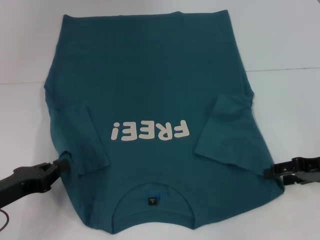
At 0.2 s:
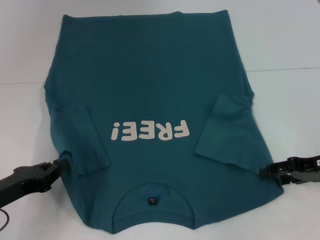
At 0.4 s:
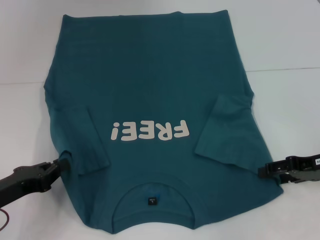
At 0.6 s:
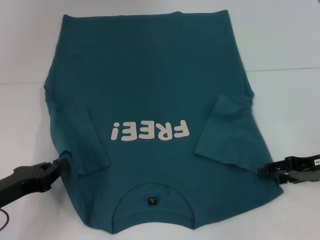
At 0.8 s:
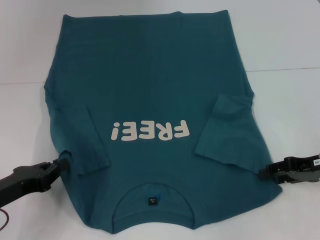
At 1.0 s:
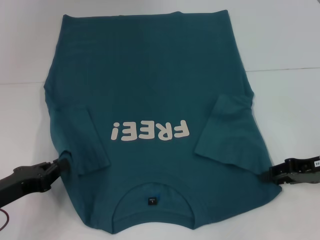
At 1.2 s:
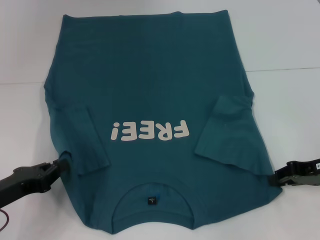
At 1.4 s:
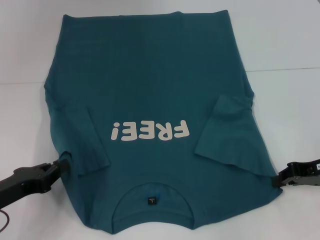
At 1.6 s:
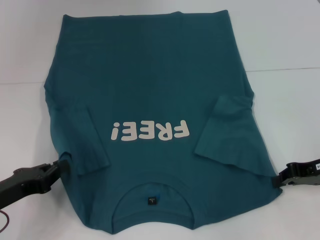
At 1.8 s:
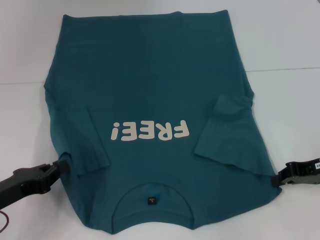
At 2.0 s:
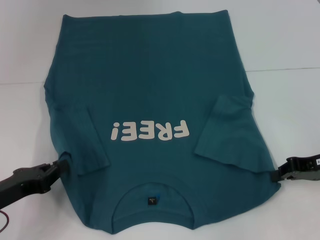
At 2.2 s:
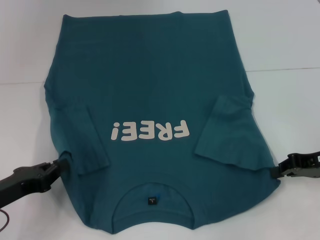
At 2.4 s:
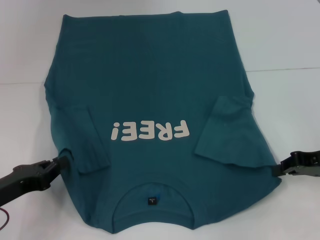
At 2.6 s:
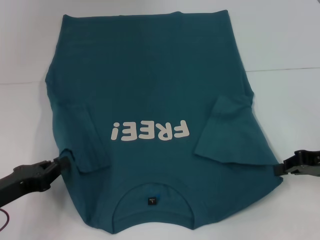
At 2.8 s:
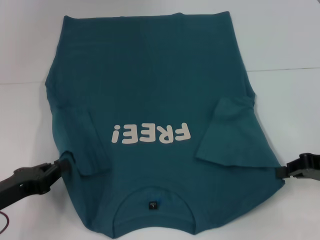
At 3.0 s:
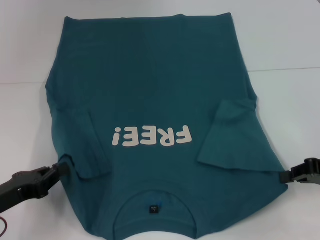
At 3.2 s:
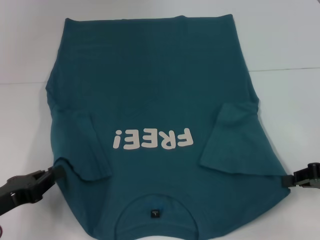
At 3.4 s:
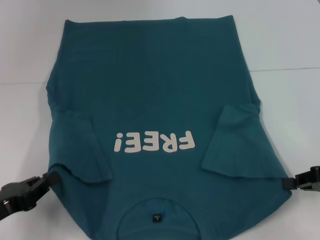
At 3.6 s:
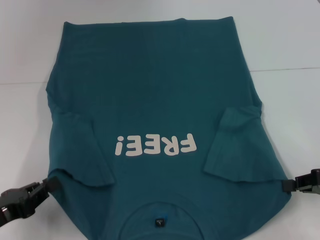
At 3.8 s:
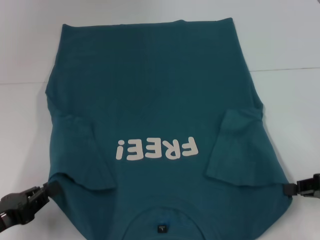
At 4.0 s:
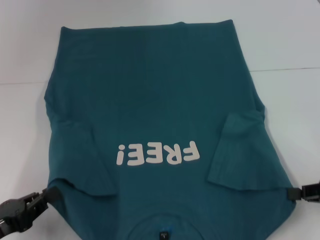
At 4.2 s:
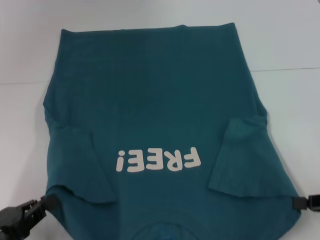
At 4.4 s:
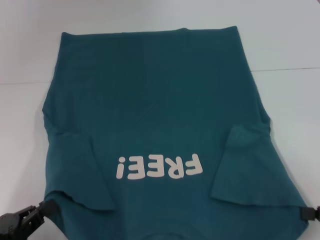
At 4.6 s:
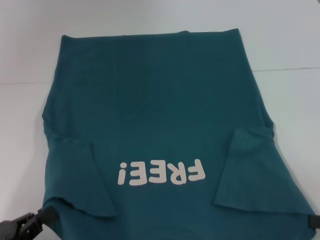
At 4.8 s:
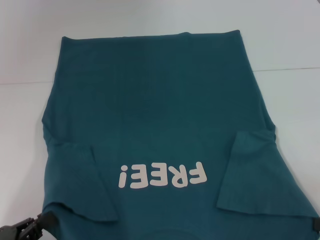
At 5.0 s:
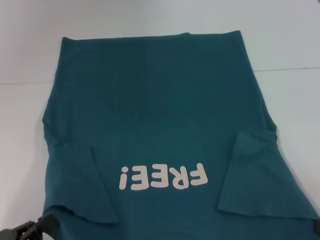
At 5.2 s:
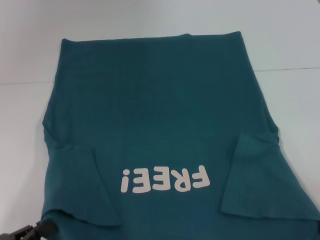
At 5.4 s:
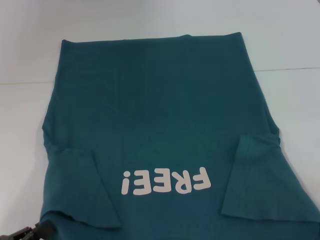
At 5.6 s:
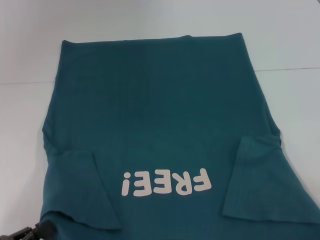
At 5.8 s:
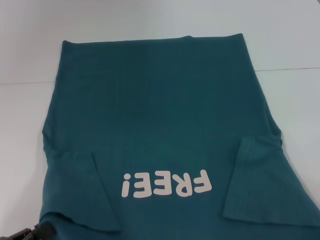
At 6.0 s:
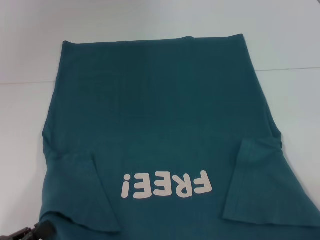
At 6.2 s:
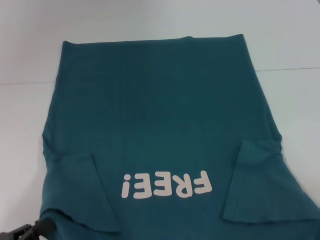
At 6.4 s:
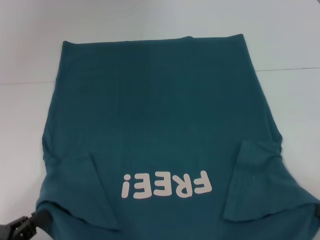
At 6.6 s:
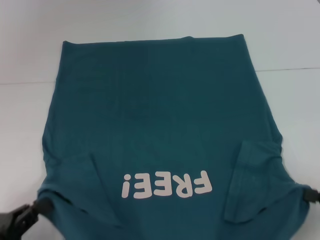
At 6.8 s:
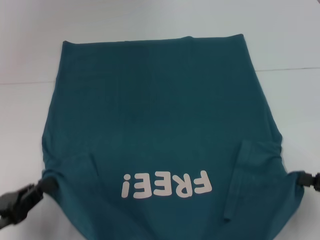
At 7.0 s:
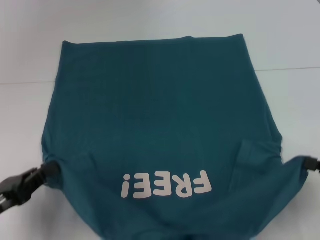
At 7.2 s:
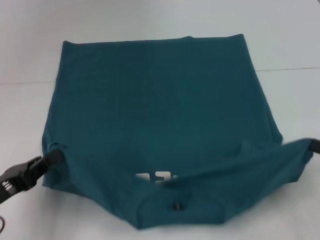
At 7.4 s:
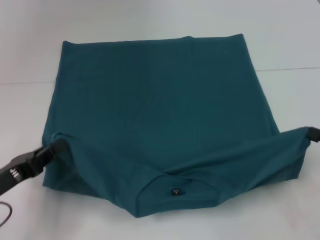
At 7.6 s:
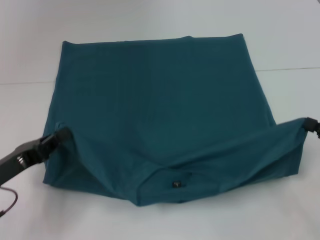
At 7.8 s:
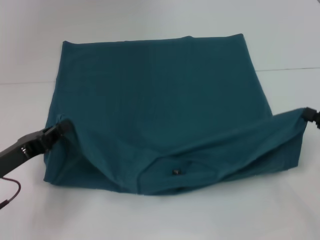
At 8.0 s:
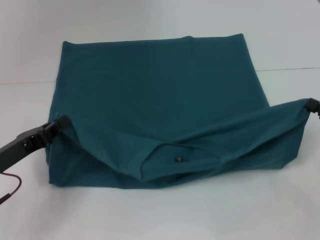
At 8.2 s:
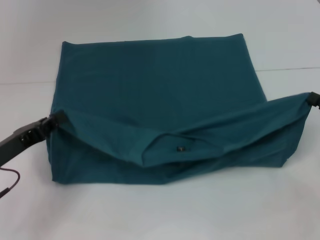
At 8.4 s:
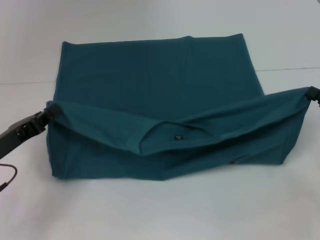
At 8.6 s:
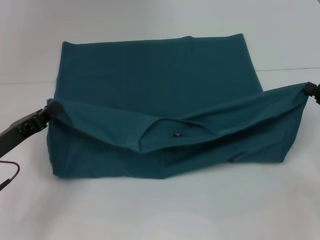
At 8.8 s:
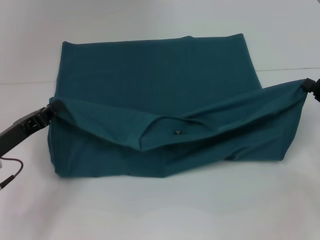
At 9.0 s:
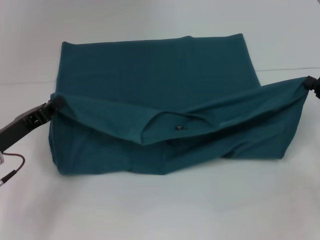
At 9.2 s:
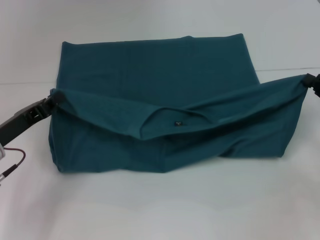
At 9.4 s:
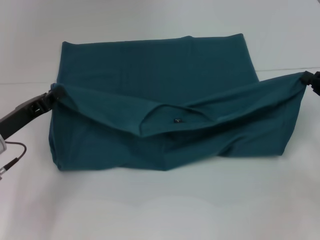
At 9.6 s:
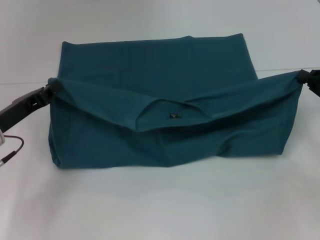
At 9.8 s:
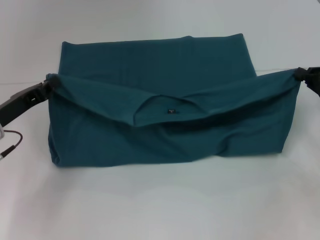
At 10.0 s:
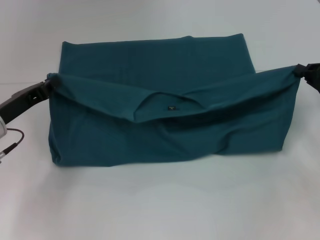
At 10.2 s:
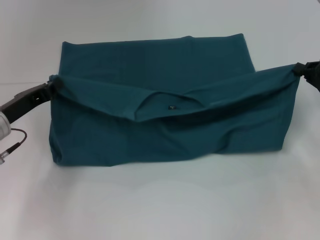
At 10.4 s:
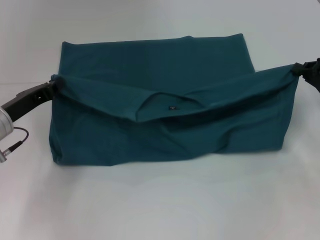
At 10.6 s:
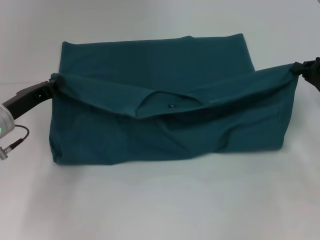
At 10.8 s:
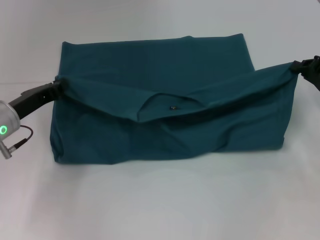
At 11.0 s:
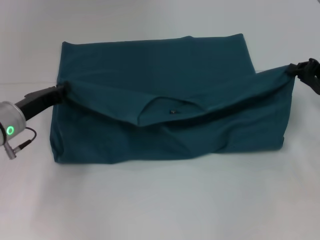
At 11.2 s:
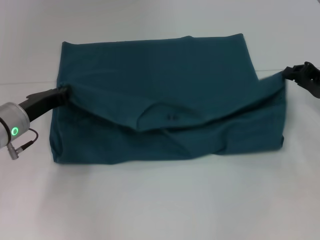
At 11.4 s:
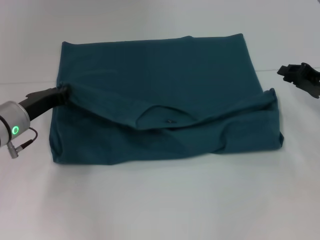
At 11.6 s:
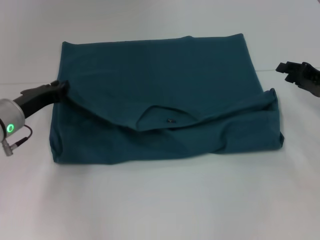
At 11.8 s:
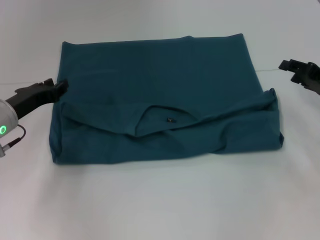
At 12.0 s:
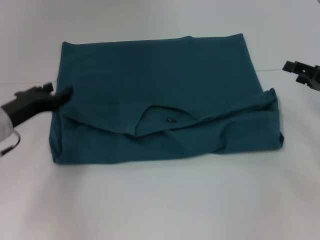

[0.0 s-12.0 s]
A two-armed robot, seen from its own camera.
Step, 0.0 to 2.0 s: Grab the bottom right corner with your right hand.
0.0 to 1.6 s: The right gripper closes up.
1.6 to 3.0 s: The grippers make only small movements.
3.0 to 4.4 s: Both grippers travel together backward, approximately 10 cm.
4.4 to 6.0 s: The right gripper moves backward, roughly 5 cm.
6.0 to 7.6 s: The two grippers go approximately 10 cm forward.
7.6 to 9.0 s: The grippers both shift forward by some 5 cm.
9.0 to 10.4 s: The left gripper shifts by some 5 cm.
10.4 to 12.0 s: The left gripper opens, while the right gripper opens its fingers.

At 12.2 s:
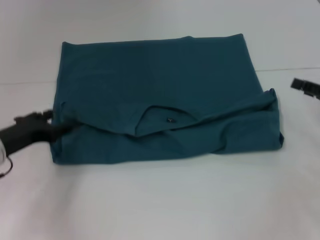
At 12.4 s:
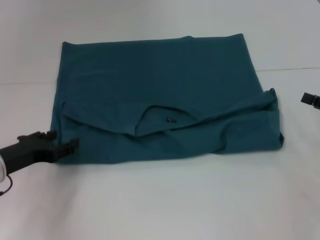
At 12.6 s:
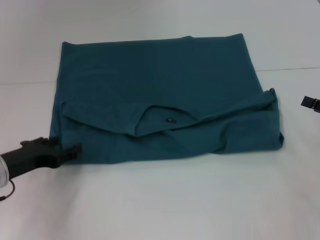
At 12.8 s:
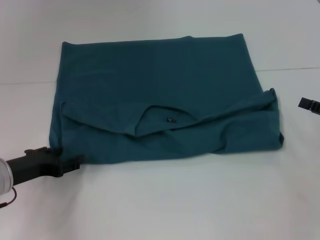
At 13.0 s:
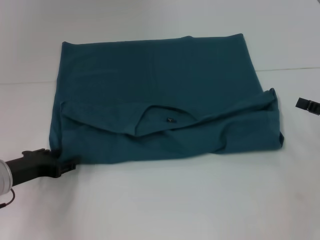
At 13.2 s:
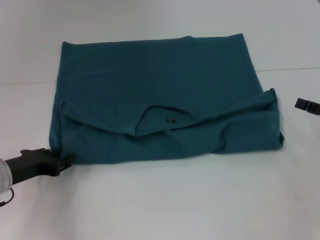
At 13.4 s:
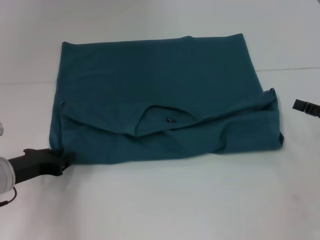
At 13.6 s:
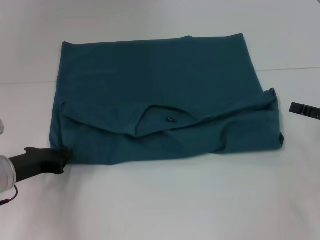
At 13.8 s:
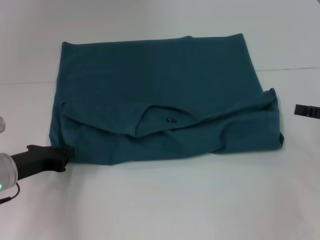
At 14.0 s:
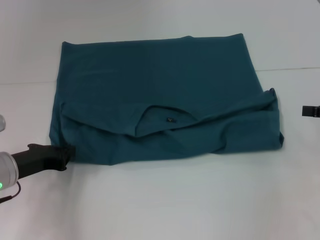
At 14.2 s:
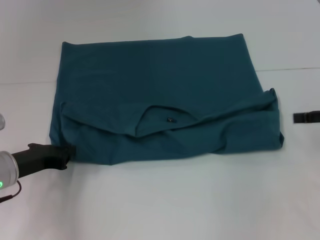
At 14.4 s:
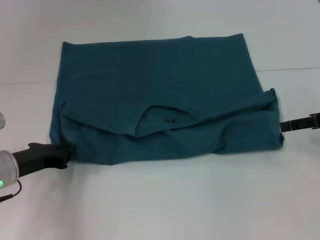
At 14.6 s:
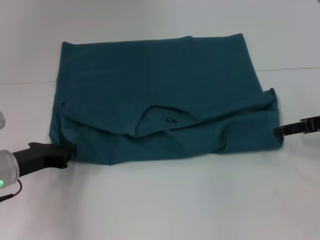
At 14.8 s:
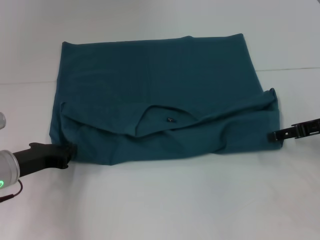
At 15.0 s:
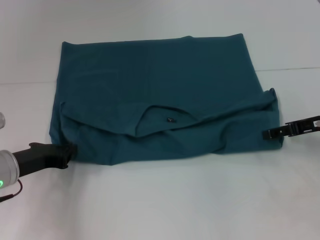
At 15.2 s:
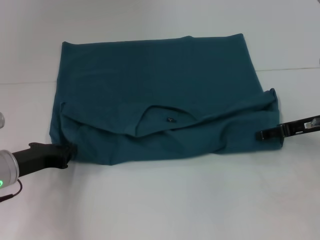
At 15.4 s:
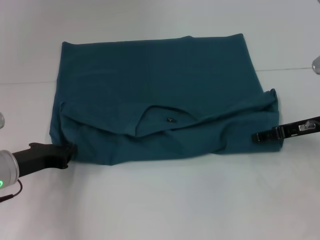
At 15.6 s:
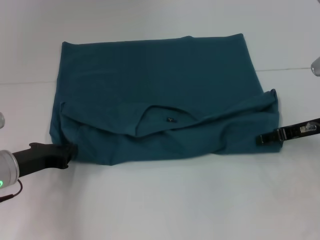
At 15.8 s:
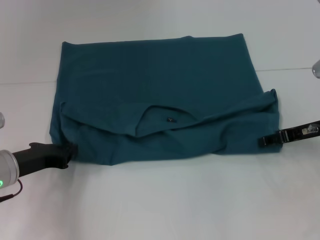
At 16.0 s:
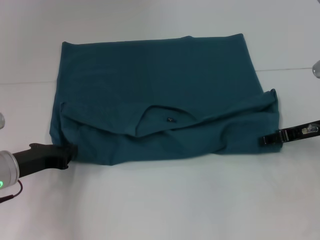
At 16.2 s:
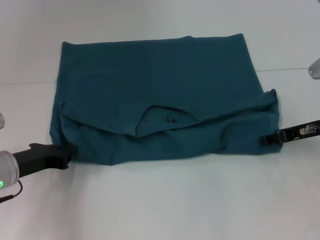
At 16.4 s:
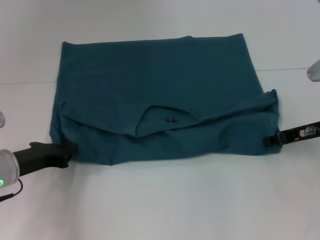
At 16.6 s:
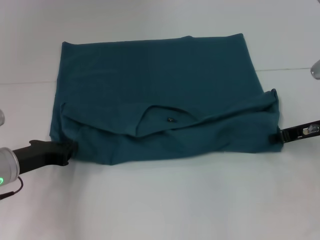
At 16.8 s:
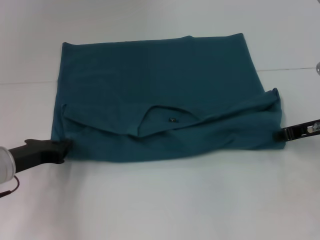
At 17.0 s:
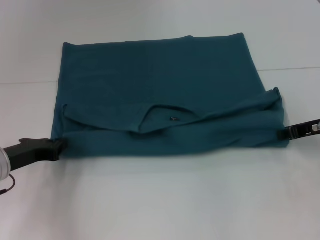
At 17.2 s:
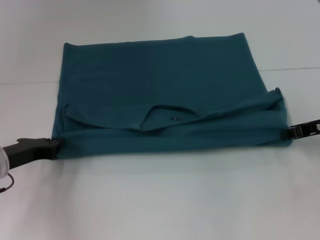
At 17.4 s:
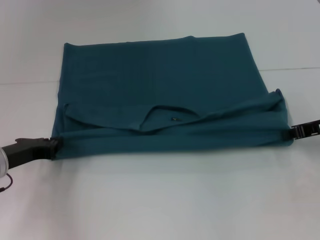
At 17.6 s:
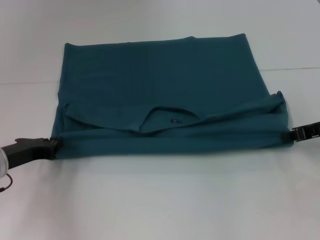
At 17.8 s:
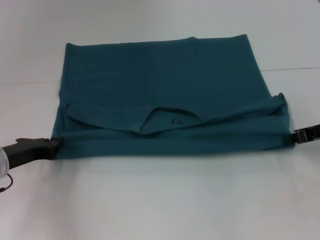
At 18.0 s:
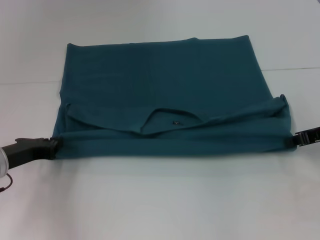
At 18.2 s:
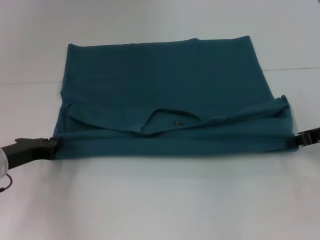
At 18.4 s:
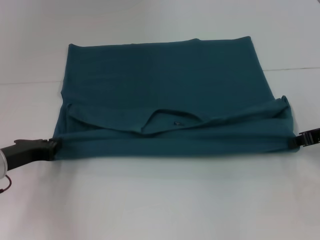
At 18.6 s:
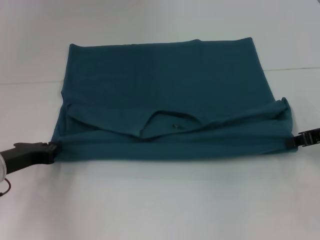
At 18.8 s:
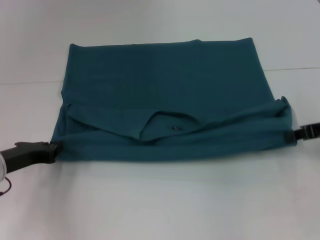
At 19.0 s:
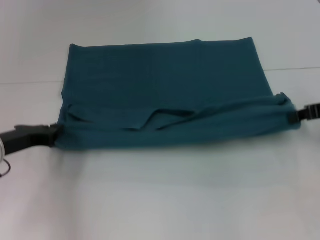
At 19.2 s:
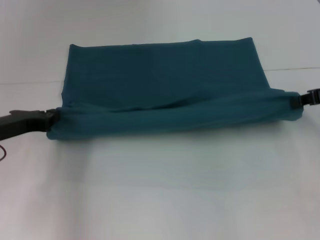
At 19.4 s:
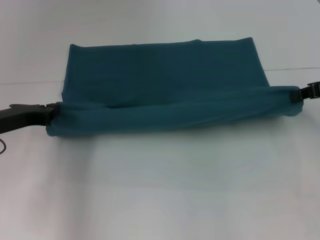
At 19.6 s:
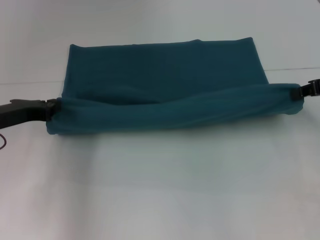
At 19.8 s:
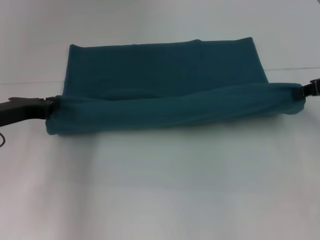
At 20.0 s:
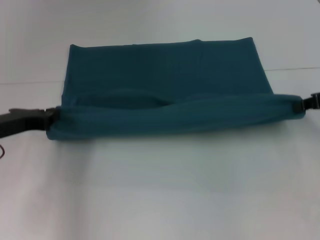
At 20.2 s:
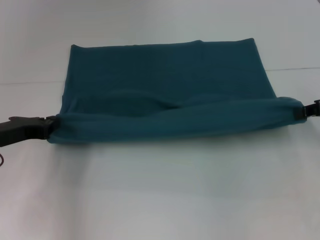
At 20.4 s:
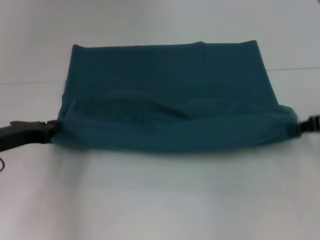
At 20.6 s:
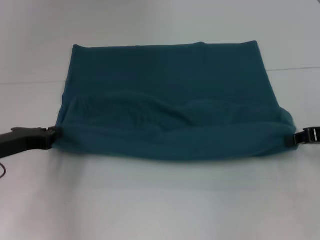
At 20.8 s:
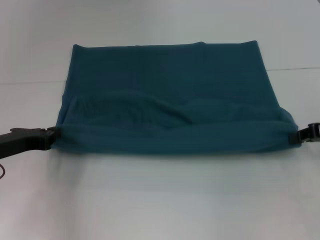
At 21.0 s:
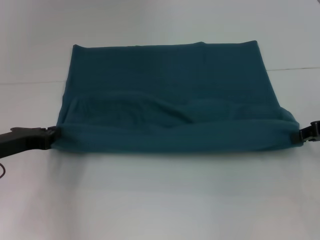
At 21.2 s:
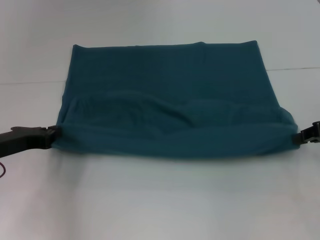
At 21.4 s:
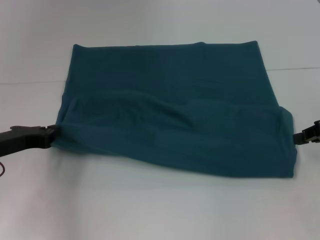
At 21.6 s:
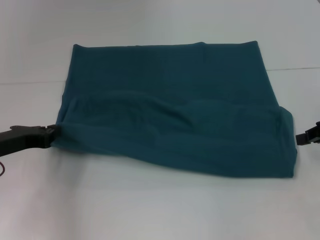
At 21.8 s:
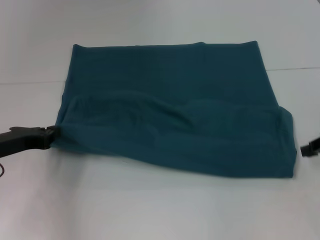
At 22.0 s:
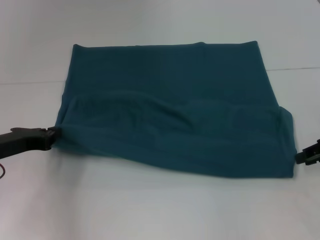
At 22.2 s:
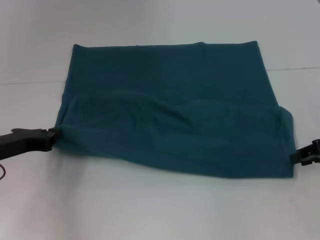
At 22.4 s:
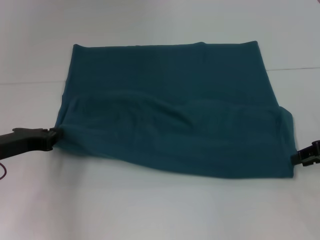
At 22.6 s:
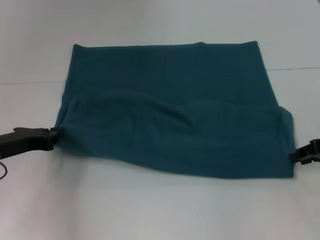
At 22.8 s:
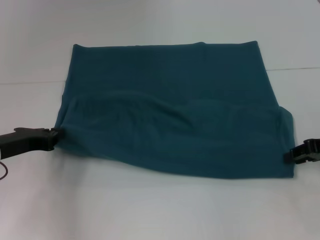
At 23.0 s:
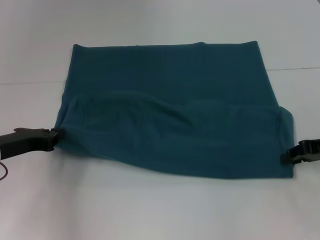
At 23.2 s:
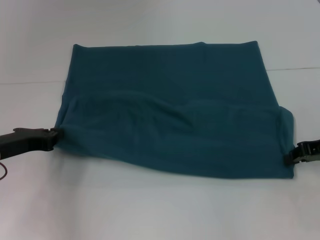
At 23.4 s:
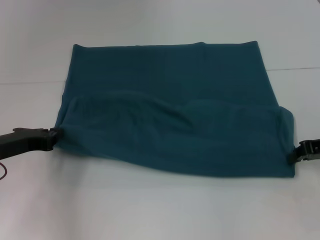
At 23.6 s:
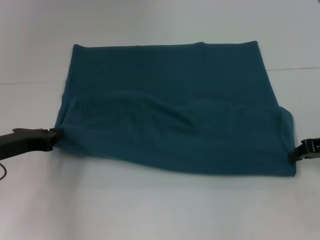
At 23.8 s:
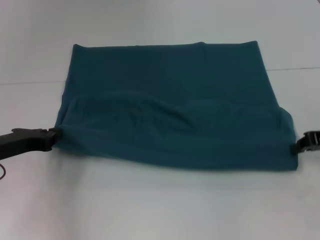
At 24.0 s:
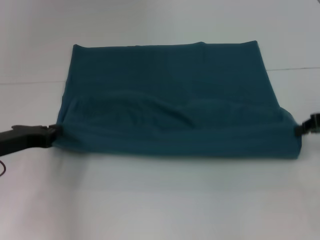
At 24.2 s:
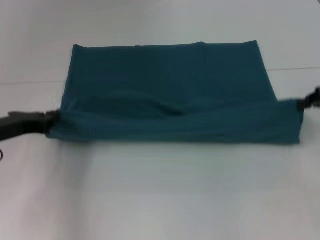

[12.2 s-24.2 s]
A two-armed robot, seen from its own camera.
12.2 to 13.8 s: The left gripper closes its fingers.
13.8 to 15.2 s: The right gripper shifts about 10 cm to the left and forward.
15.2 to 16.6 s: The right gripper closes.
16.6 to 18.2 s: The grippers stay close to where they were, moving slightly.
18.2 to 19.8 s: The two grippers go roughly 5 cm upward.
19.8 to 21.2 s: The right gripper moves downward, some 5 cm.
21.2 to 22.6 s: There are only small adjustments of the grippers.
22.6 to 24.2 s: The right gripper heads upward, covering approximately 5 cm, and closes up.
